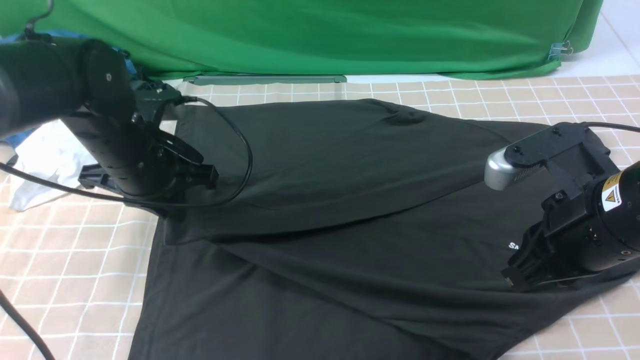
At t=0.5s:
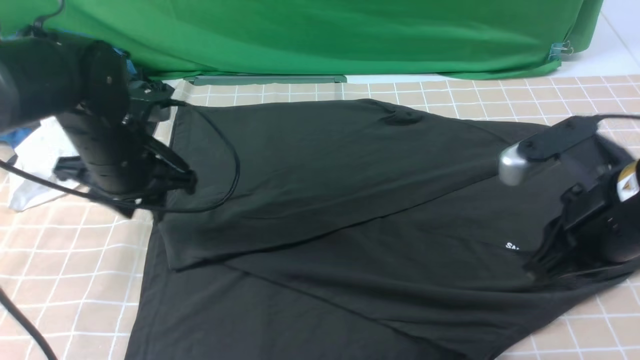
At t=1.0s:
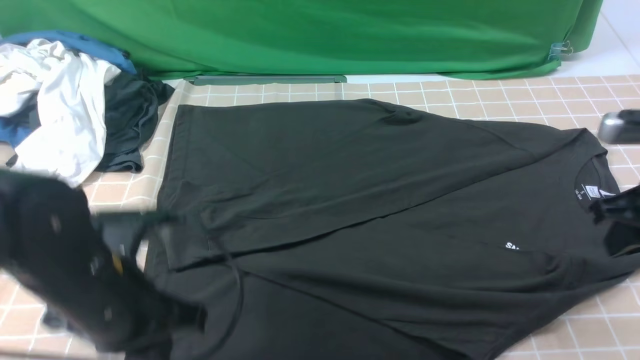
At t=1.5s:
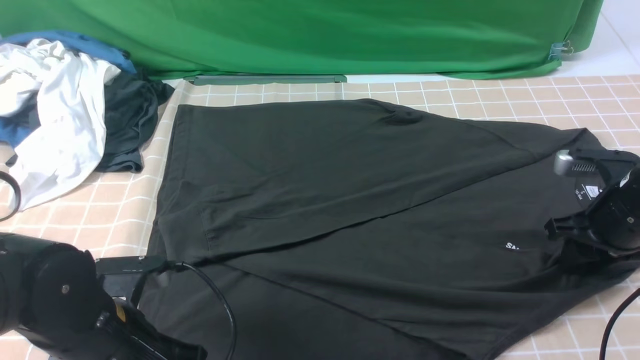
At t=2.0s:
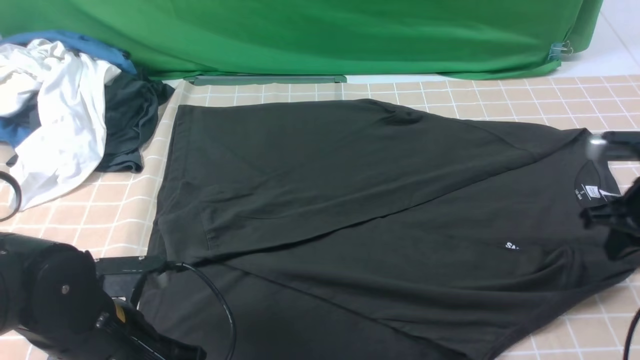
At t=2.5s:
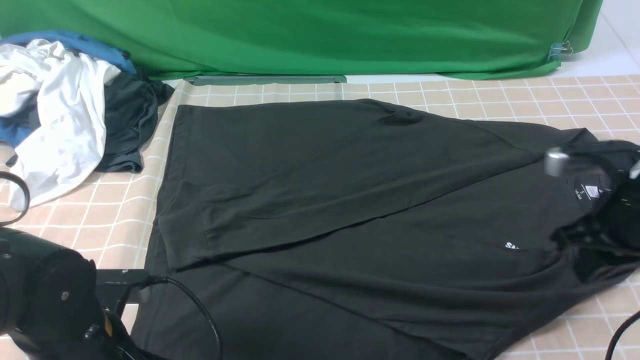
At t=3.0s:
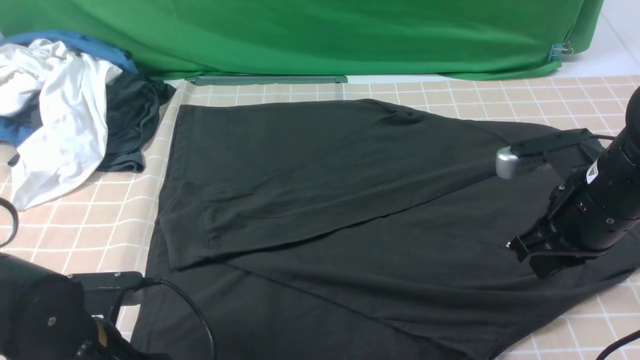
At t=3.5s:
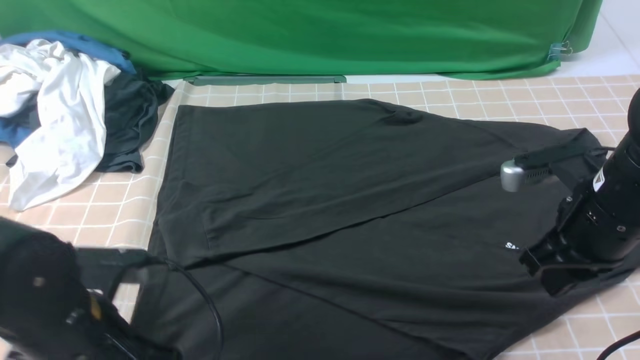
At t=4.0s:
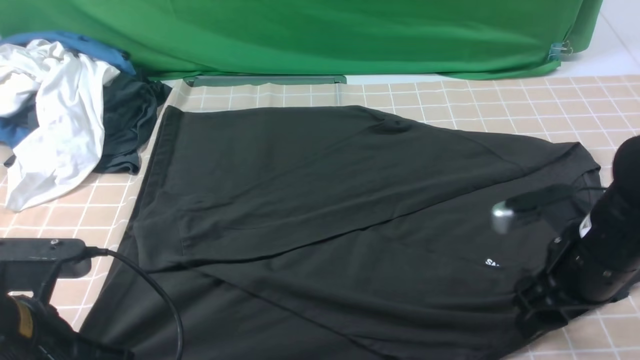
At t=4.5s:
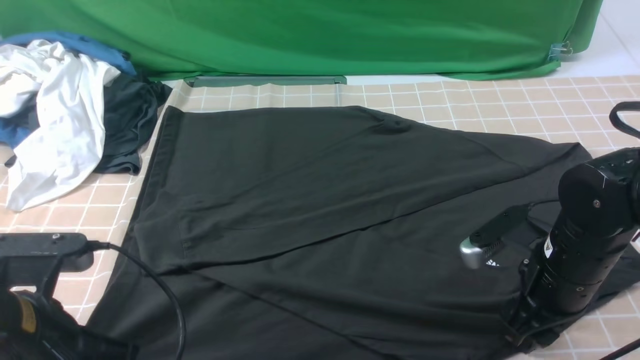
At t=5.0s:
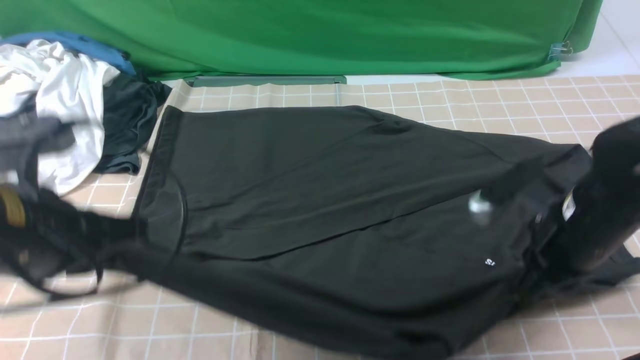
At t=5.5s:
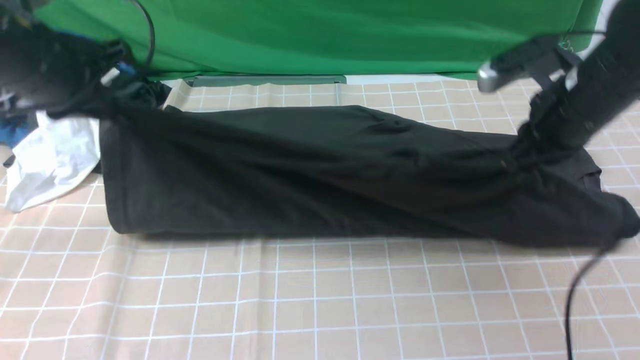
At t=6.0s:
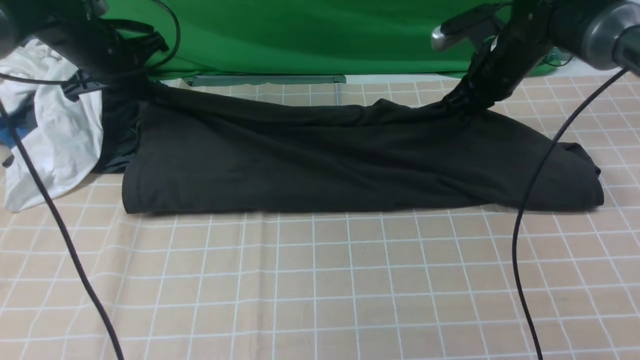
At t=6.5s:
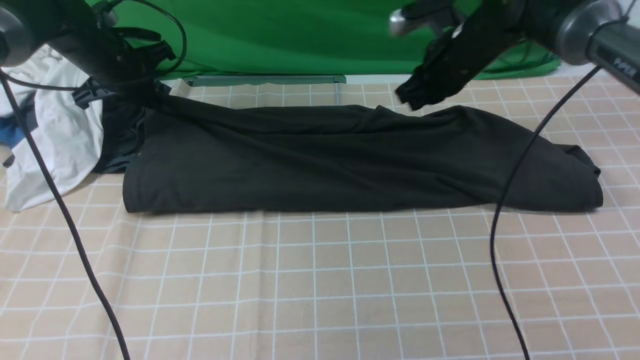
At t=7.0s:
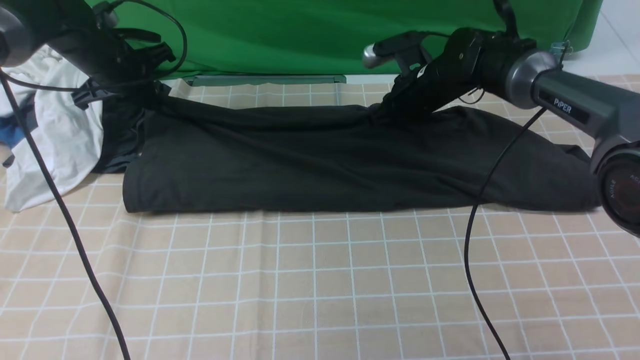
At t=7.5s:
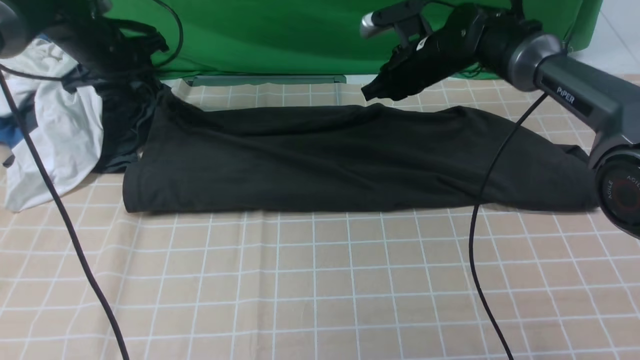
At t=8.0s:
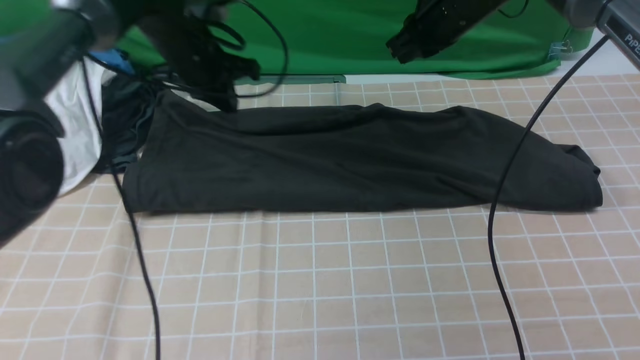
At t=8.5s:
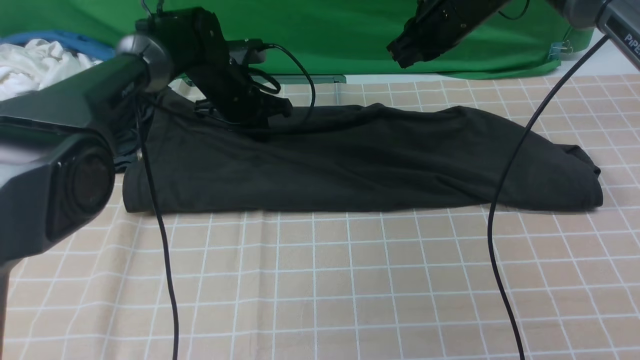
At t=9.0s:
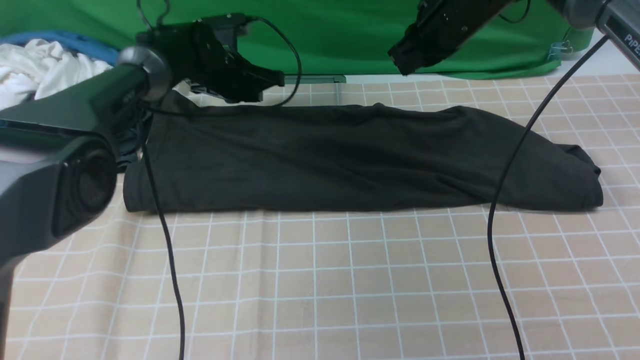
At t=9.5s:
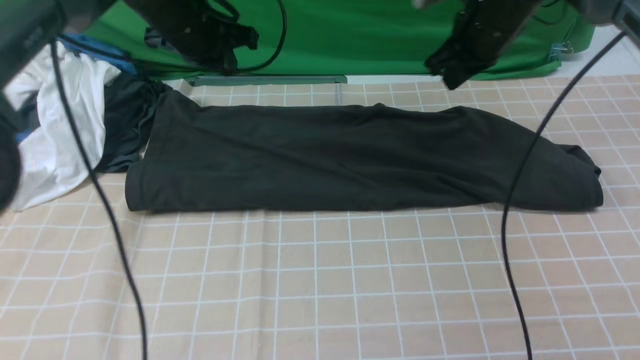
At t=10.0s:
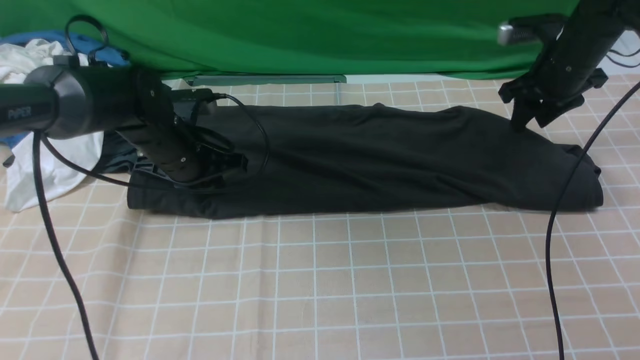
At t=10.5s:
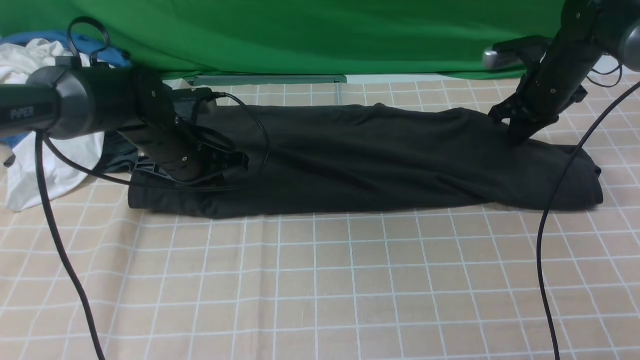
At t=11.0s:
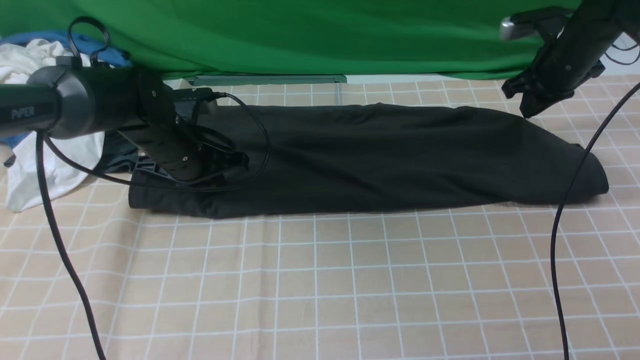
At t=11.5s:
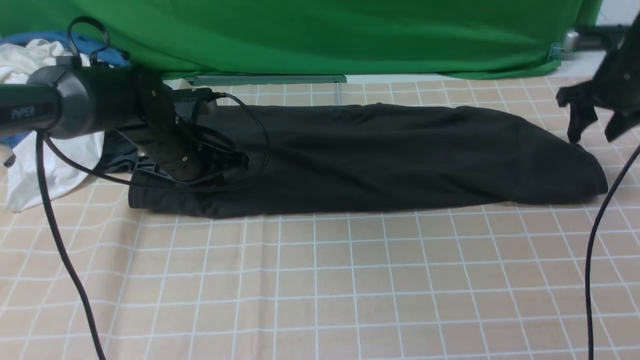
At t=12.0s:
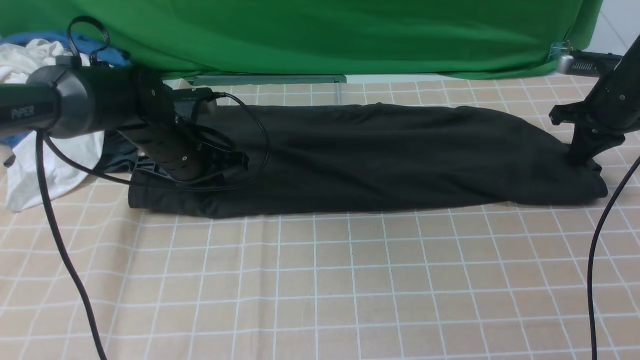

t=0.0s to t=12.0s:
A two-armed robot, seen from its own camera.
Step, t=0.0s to t=4.5s: use both arms simultaneously to clamp the lower edge of the clothing fabric.
Step, t=5.0s to t=6.5s: use both arms to drag the lower edge of the fabric forward and fold it over the upper edge.
t=0.0s to t=2.0s: The right gripper shifts some 15 cm to the right, forward and downward, and opens, then closes again. Meanwhile the left gripper shifts about 15 cm backward.
t=2.0s to t=4.0s: The left gripper goes approximately 5 cm upward, and opens, then closes again; the right gripper is displaced to the left and backward by approximately 10 cm, and opens up.
t=4.0s to t=6.0s: Both grippers move forward, approximately 30 cm. The right gripper closes.
t=6.0s to t=8.0s: The left gripper travels to the right by roughly 10 cm, and opens, then closes again; the right gripper goes about 10 cm upward and to the left.
t=8.0s to t=10.0s: The left gripper travels backward and downward by some 10 cm. Meanwhile the right gripper goes some 15 cm to the right and downward, and opens up.
t=10.0s to t=12.0s: The right gripper shifts approximately 10 cm to the right, and closes.

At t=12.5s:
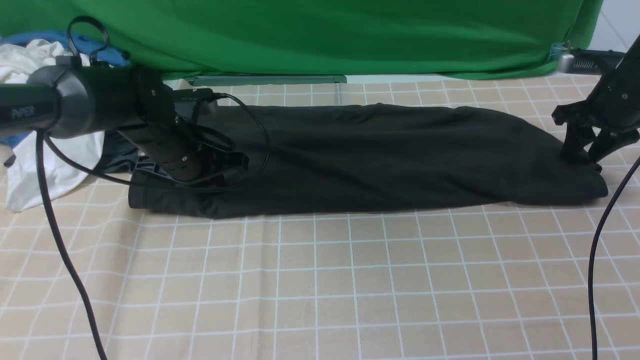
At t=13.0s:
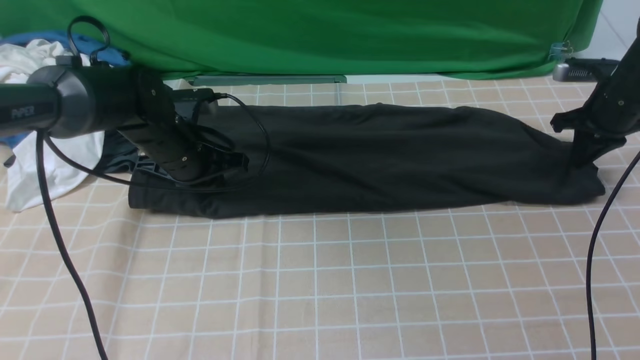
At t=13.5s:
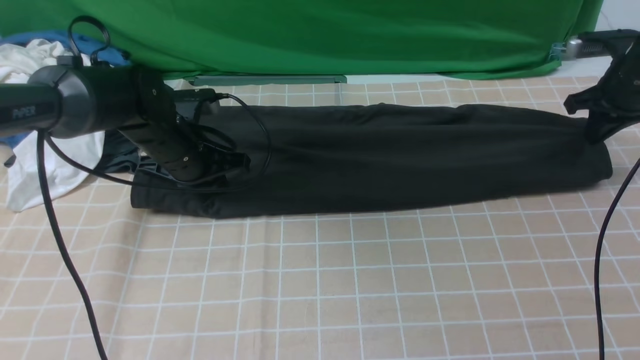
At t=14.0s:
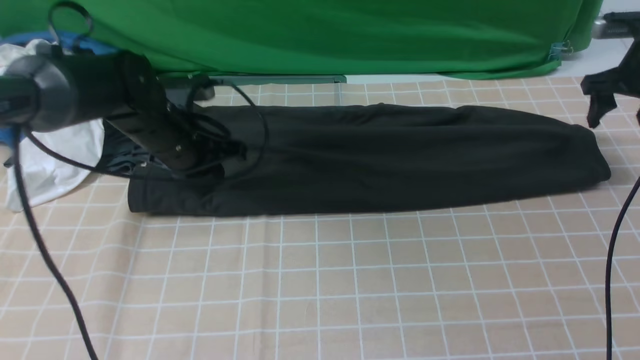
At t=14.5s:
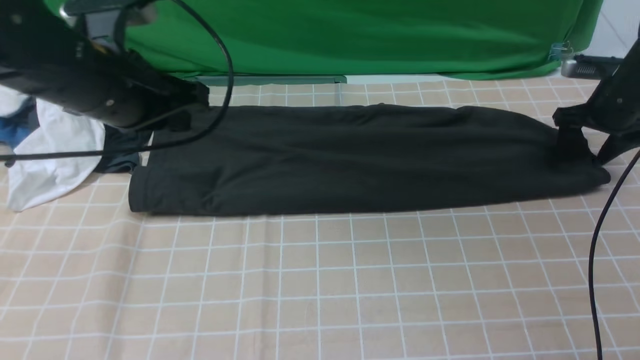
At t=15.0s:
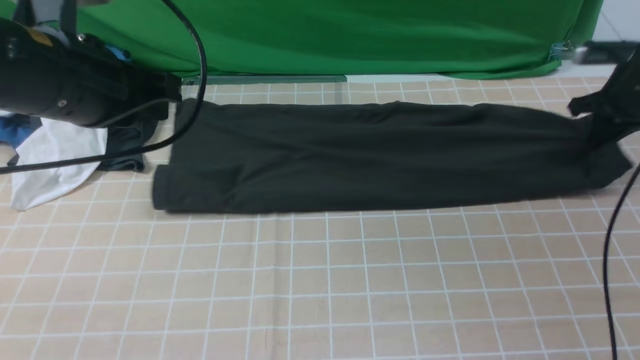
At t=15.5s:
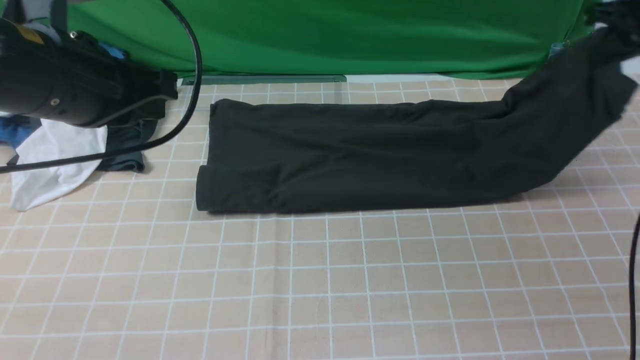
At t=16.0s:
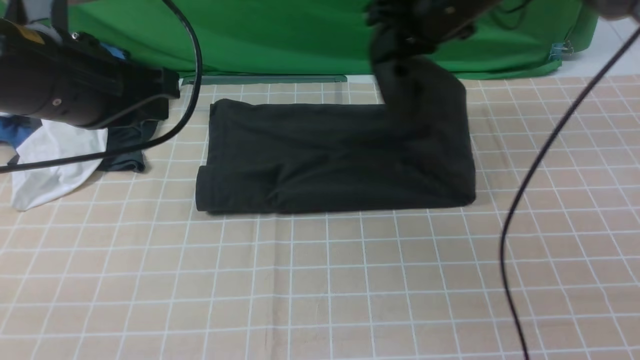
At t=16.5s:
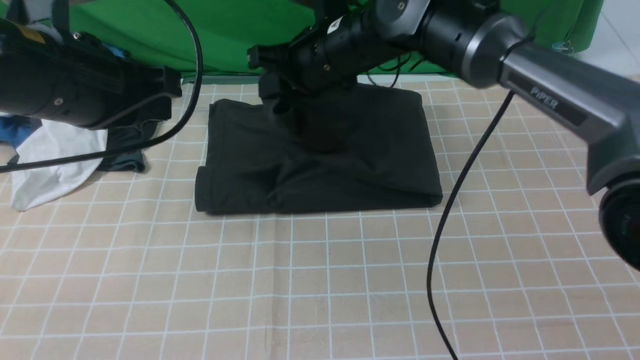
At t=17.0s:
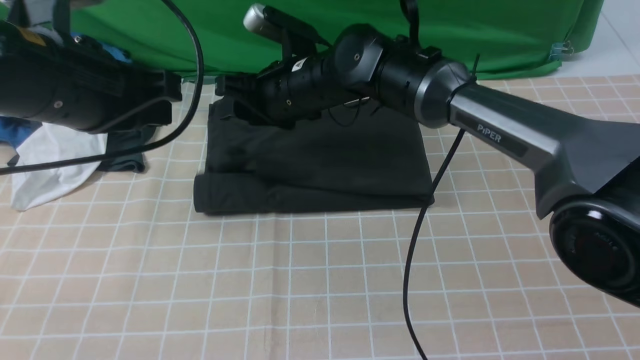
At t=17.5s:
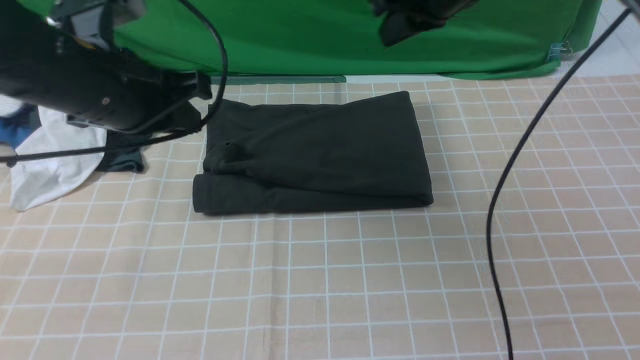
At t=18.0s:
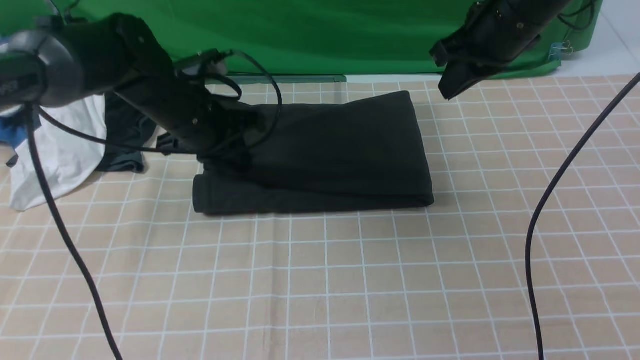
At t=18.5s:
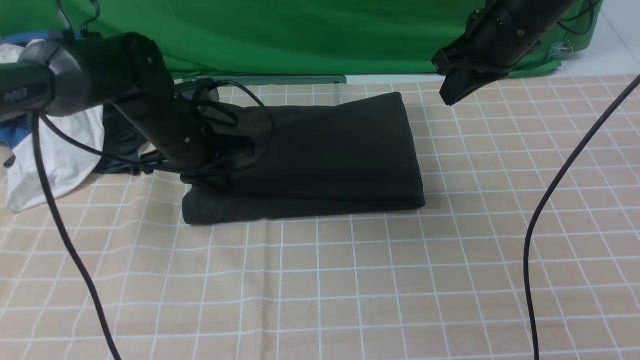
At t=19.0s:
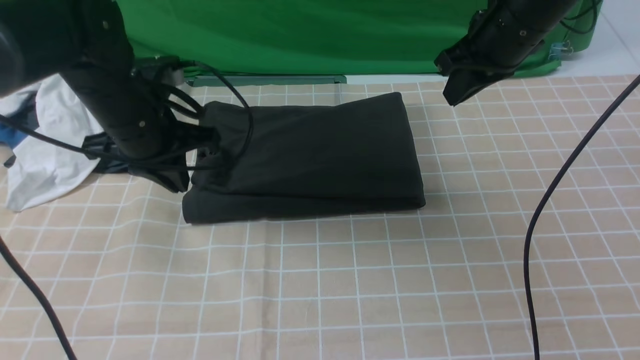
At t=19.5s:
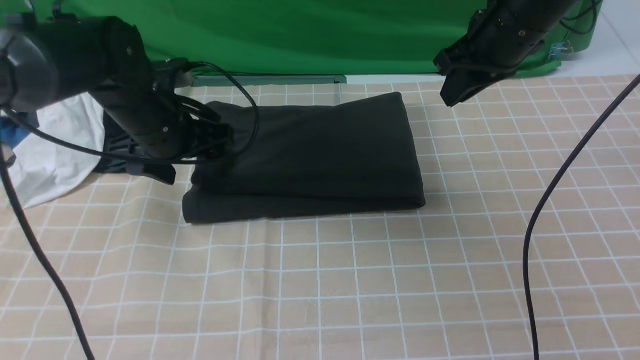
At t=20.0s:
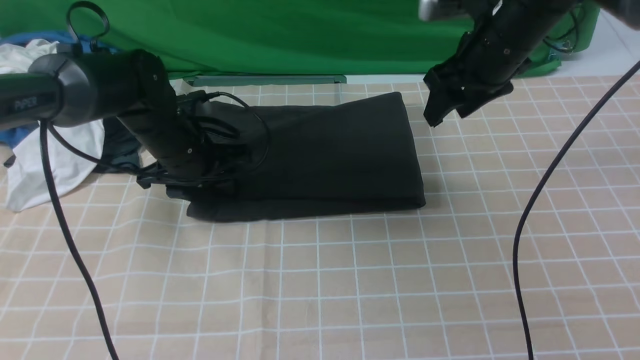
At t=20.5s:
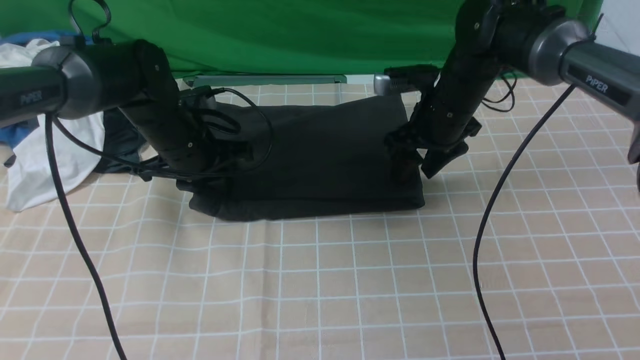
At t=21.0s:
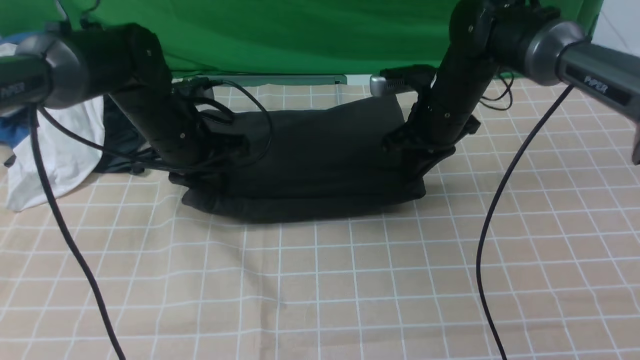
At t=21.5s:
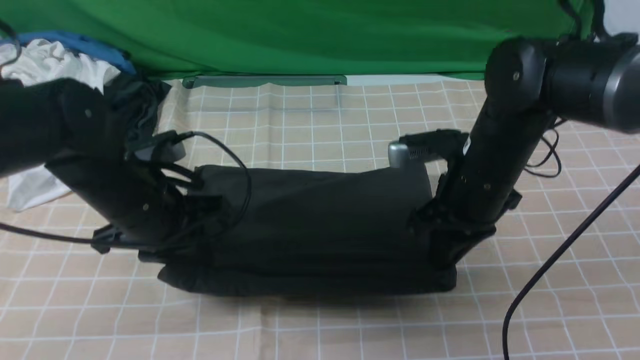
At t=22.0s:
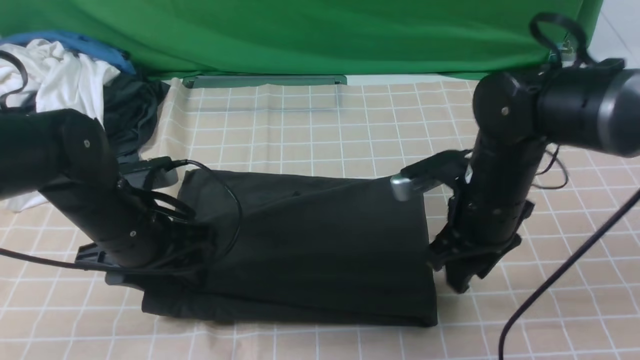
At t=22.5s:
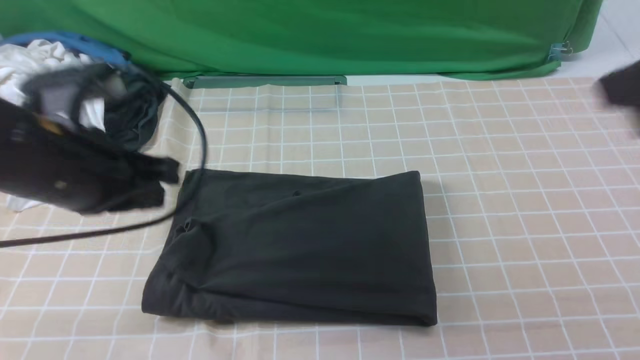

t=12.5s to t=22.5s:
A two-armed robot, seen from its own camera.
Step, t=12.5s to t=14.5s: use the right arm to clamp the right edge of the fabric.
Step, t=15.0s to t=17.5s: use the right arm to drag the right edge of the fabric to the left and folds it over the left edge.
t=12.5s to t=14.5s: The right gripper closes, then opens again; the left gripper travels upward and backward by approximately 15 cm.
t=14.5s to t=16.5s: The left gripper moves backward, about 5 cm; the right gripper goes about 40 cm to the left, and closes its fingers.
t=16.5s to t=18.5s: The left gripper is displaced downward and forward by about 20 cm; the right gripper goes some 20 cm to the right, and opens, then closes once more.
t=18.5s to t=20.5s: The left gripper opens and closes again. Meanwhile the right gripper travels downward by roughly 10 cm, and opens up.
t=20.5s to t=22.5s: The right gripper heads backward and upward, covering some 35 cm, and closes up, while the left gripper moves backward and upward, roughly 25 cm, and opens and closes again.
